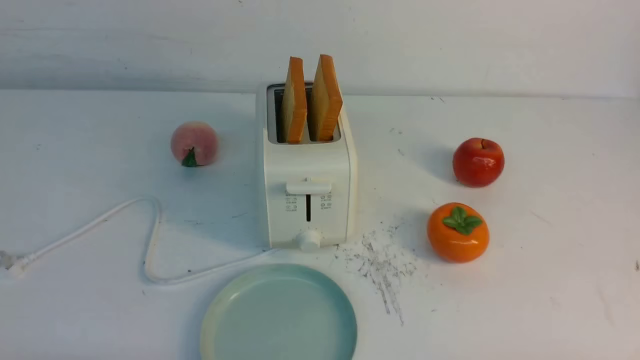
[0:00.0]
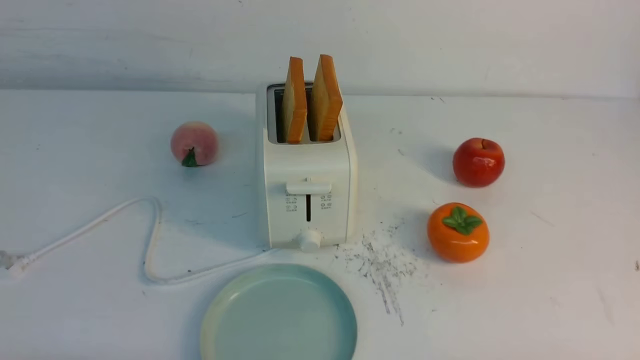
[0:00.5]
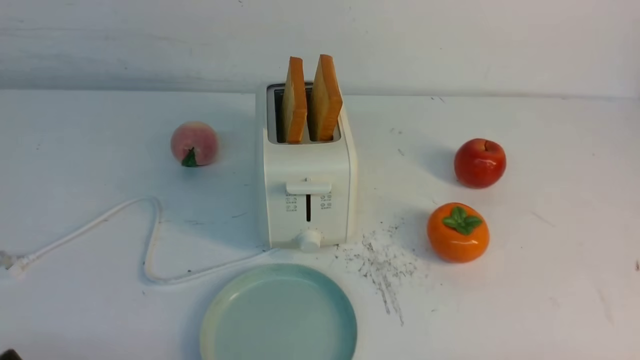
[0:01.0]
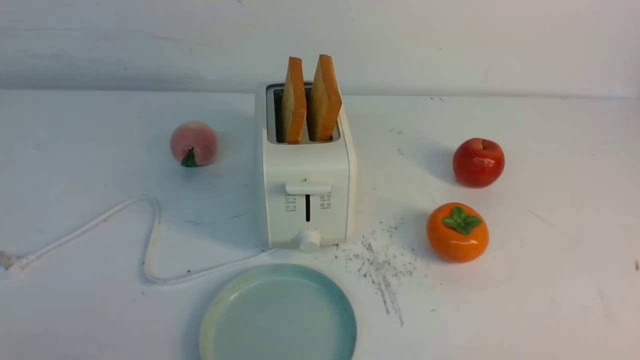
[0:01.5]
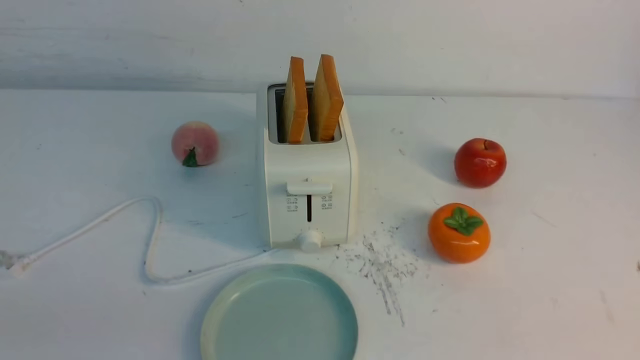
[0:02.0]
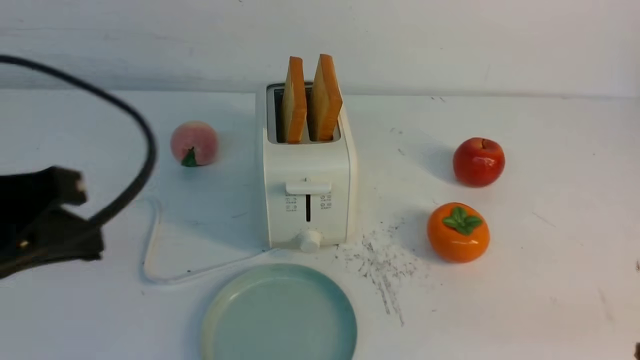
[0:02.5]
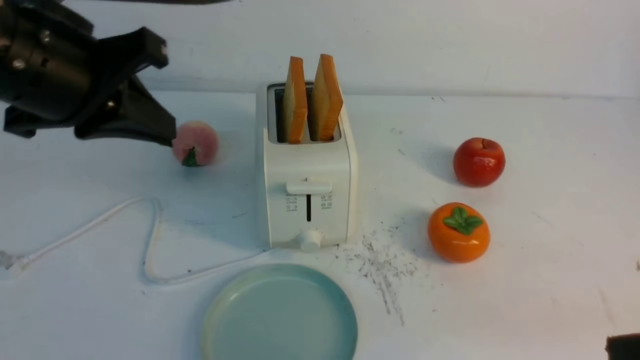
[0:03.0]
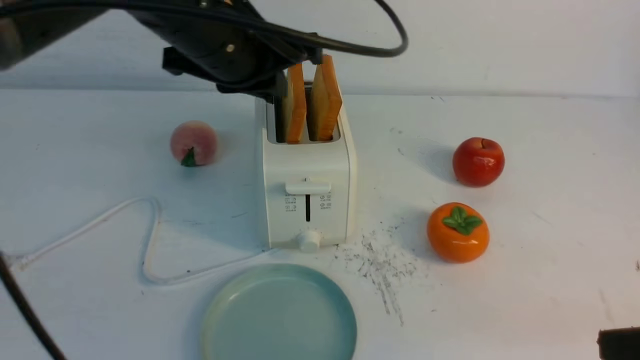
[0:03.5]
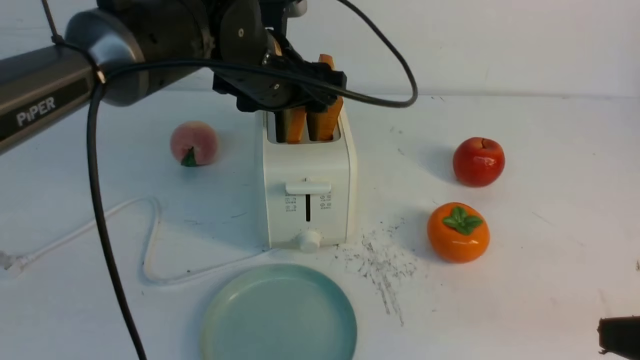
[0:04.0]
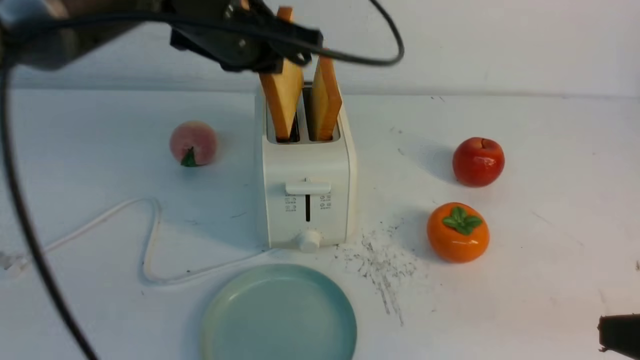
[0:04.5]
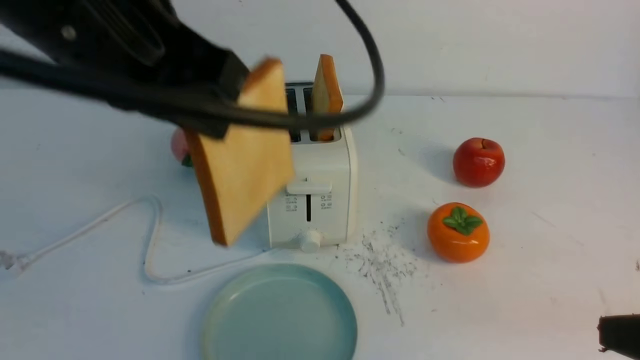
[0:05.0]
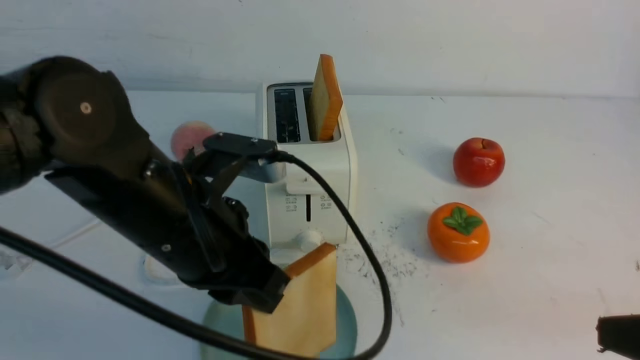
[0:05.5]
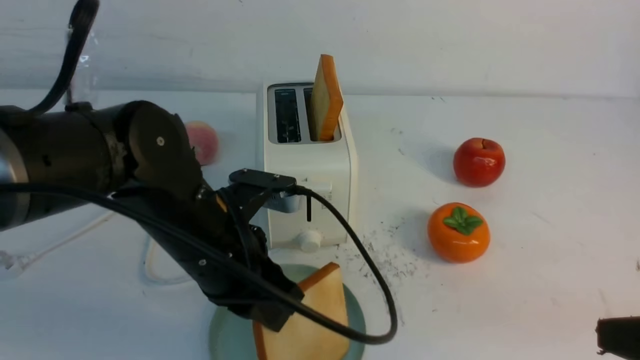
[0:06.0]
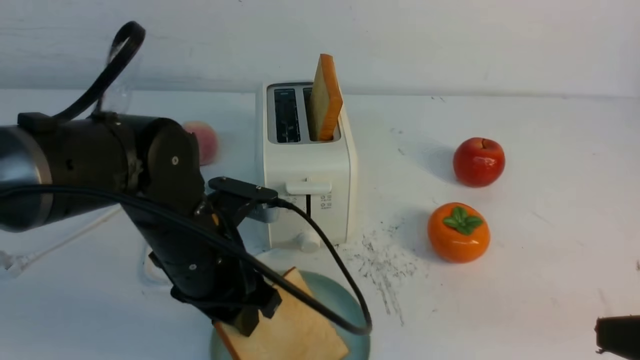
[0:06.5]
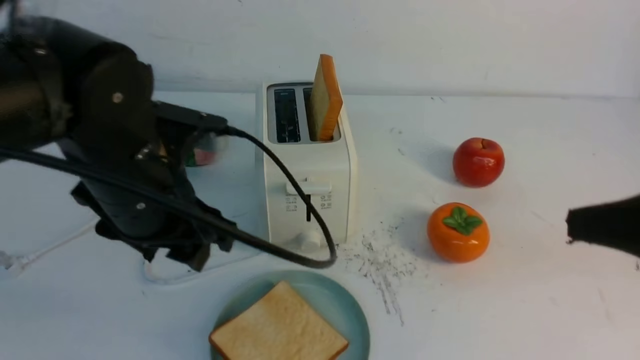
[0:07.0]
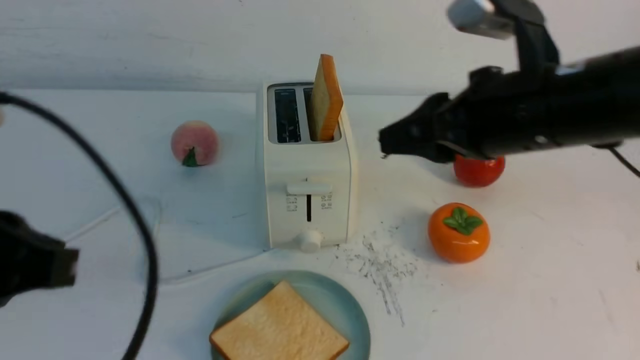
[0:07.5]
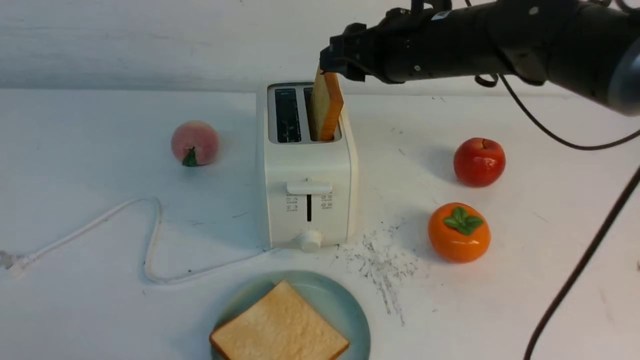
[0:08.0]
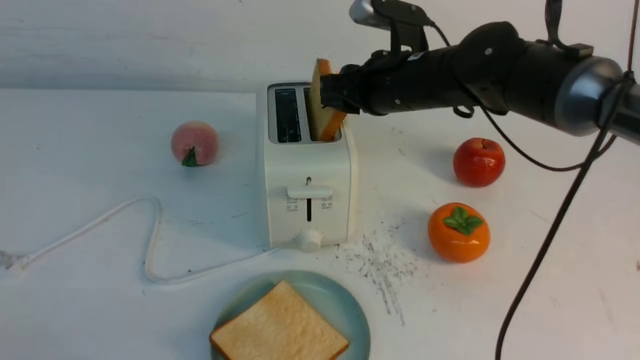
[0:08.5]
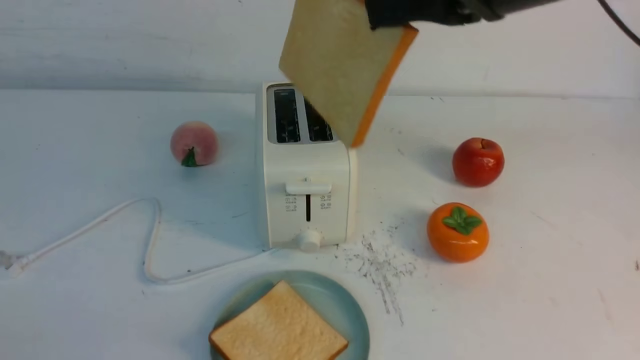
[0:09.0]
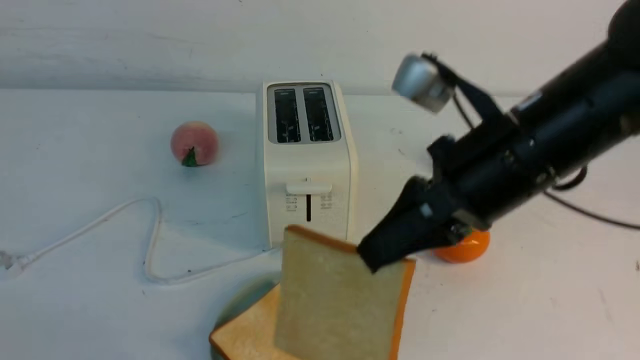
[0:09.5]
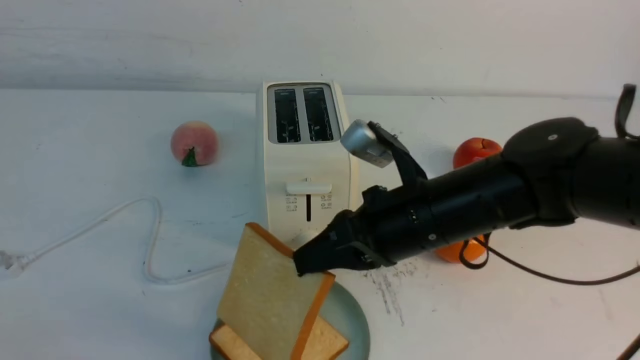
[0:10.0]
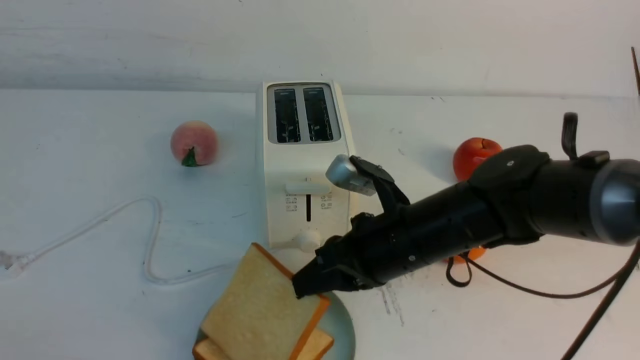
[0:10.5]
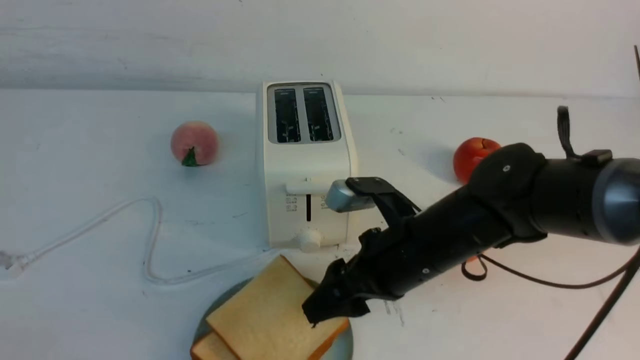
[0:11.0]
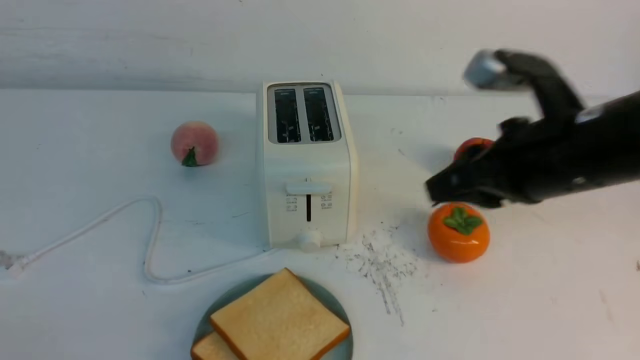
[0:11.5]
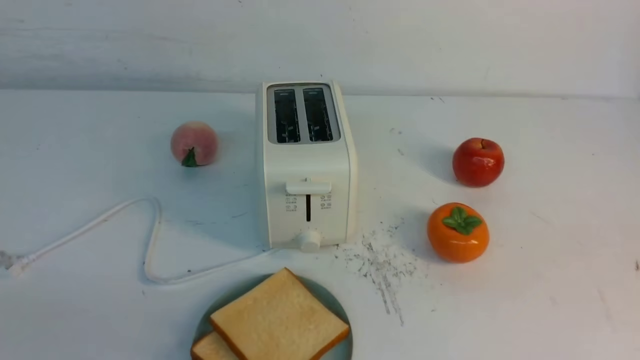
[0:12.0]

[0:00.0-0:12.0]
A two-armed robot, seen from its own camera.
Task of the whole recording: take toasted bread from bread machine on white table place on plate.
Step, 0:00.0 to 0:04.0: use the left arm to take out a slice of bread.
Step, 0:04.5 to 0:06.5: use the left arm to put a slice of bread into the empty plate.
Step, 0:07.5 to 0:08.5: use the right arm to take out a slice of bread.
Step, 0:09.0 to 0:11.0: use the right arm to put a slice of bread into the plate.
0:02.0 to 0:04.0: The left gripper shifts roughly 40 cm forward and to the right, and opens up. Meanwhile the right gripper goes roughly 5 cm forward.
0:04.0 to 0:06.0: The left gripper shifts roughly 15 cm backward and downward, and closes its fingers.
0:06.0 to 0:08.0: The left gripper shifts some 30 cm backward and to the left, and opens and closes again. Meanwhile the right gripper moves forward and to the left, about 35 cm.
0:08.0 to 0:10.0: The right gripper is displaced backward and downward by some 15 cm, and closes up.
0:10.0 to 0:12.0: The right gripper goes about 35 cm backward, to the right and upward, and opens, then closes again.
